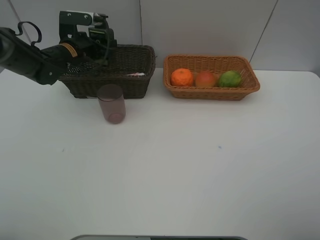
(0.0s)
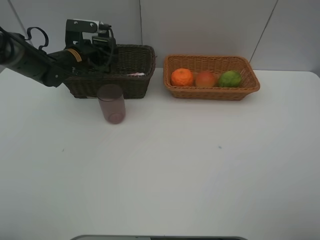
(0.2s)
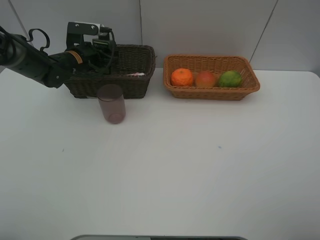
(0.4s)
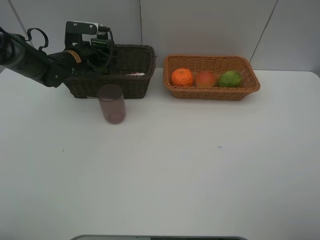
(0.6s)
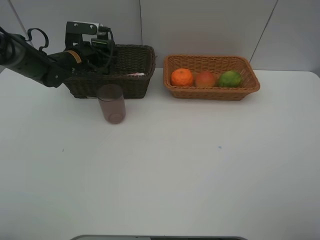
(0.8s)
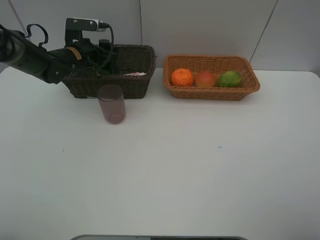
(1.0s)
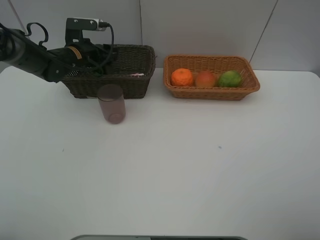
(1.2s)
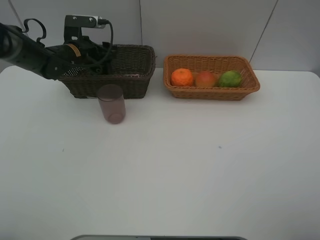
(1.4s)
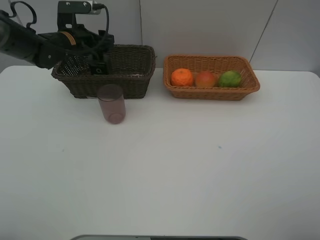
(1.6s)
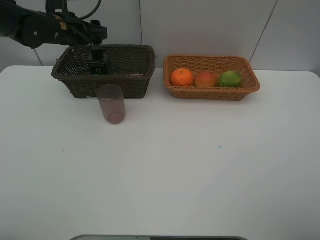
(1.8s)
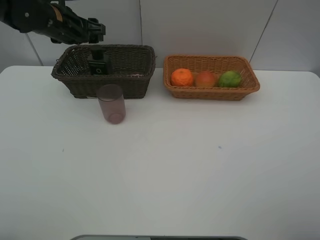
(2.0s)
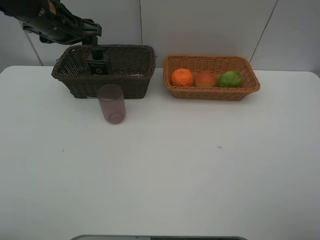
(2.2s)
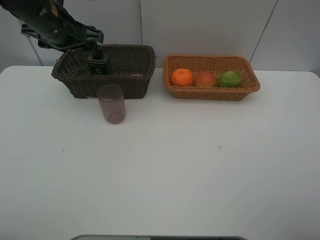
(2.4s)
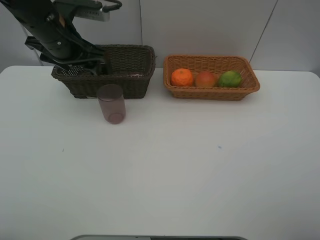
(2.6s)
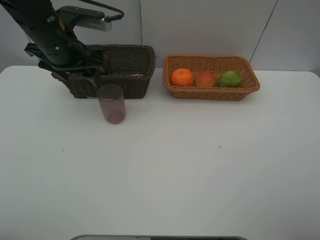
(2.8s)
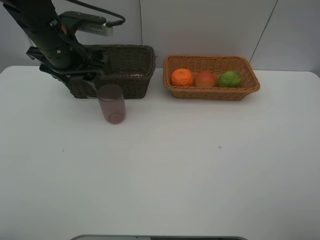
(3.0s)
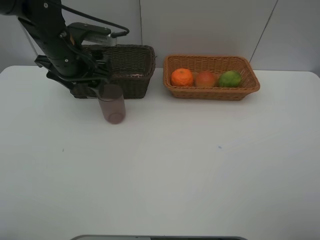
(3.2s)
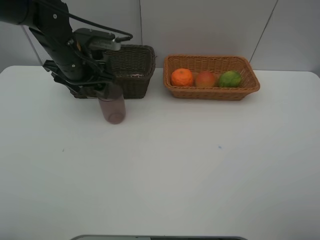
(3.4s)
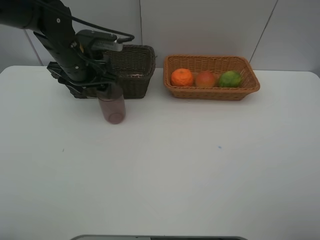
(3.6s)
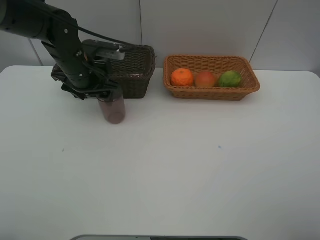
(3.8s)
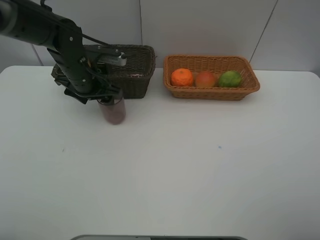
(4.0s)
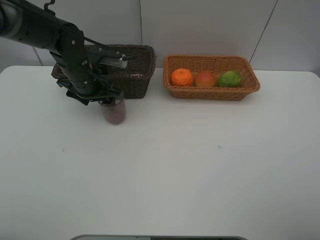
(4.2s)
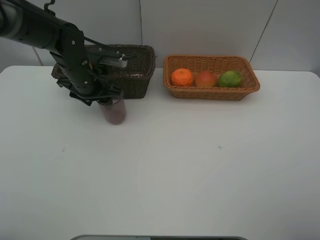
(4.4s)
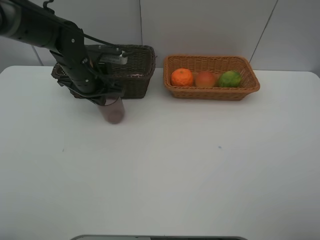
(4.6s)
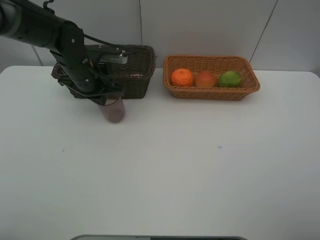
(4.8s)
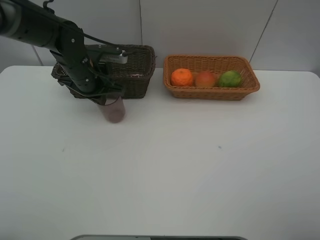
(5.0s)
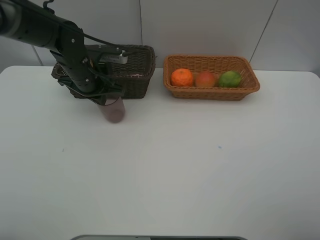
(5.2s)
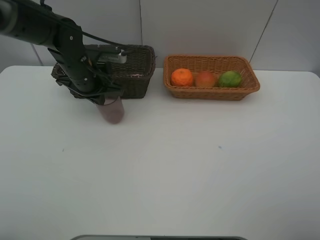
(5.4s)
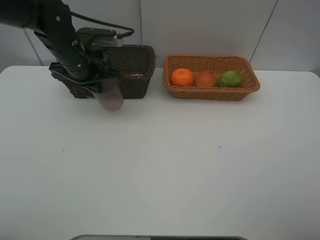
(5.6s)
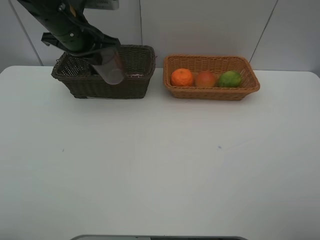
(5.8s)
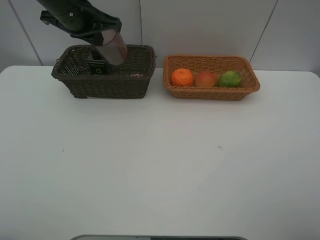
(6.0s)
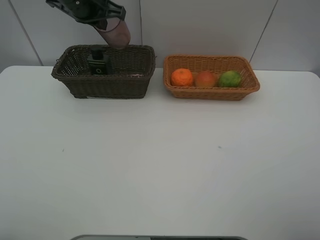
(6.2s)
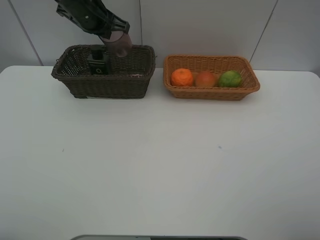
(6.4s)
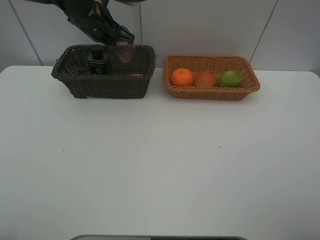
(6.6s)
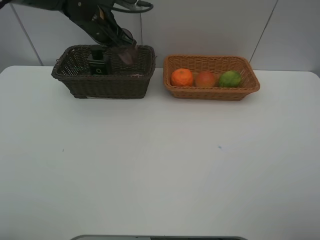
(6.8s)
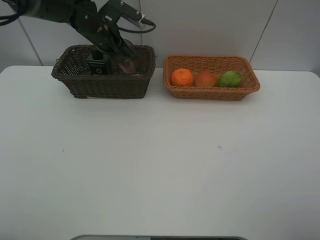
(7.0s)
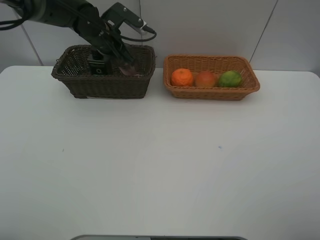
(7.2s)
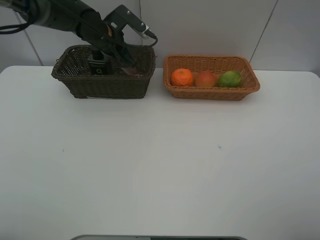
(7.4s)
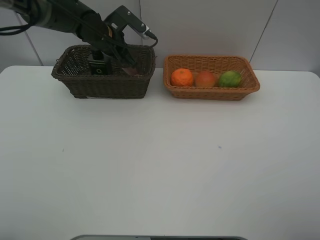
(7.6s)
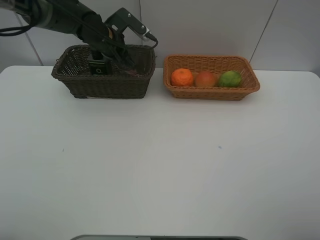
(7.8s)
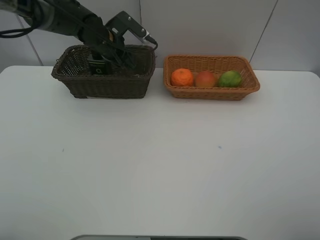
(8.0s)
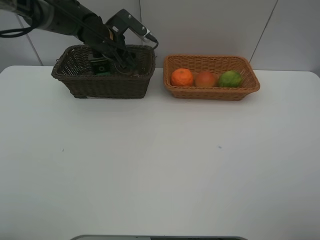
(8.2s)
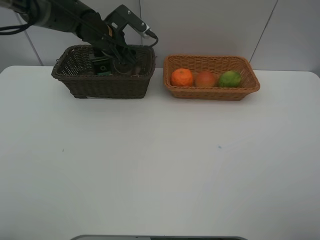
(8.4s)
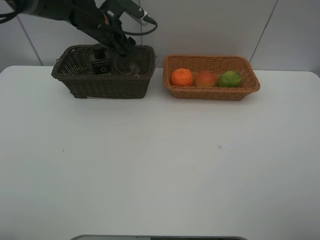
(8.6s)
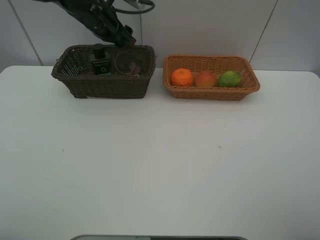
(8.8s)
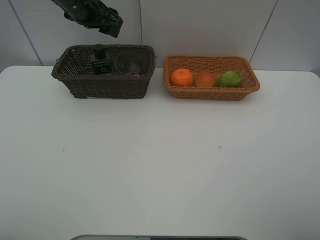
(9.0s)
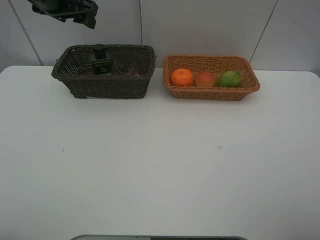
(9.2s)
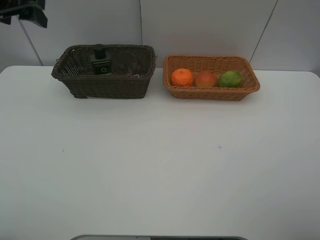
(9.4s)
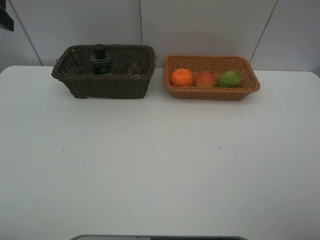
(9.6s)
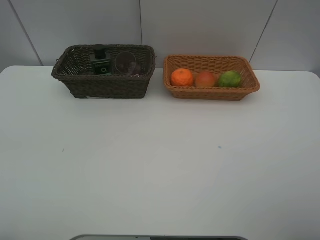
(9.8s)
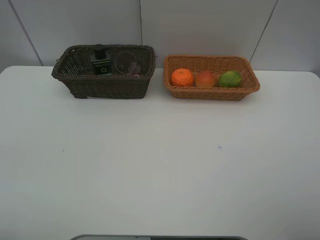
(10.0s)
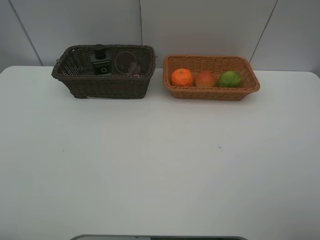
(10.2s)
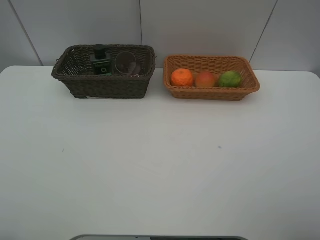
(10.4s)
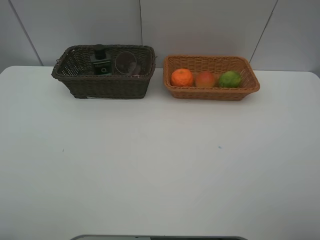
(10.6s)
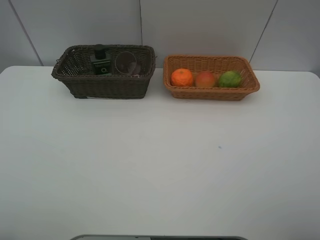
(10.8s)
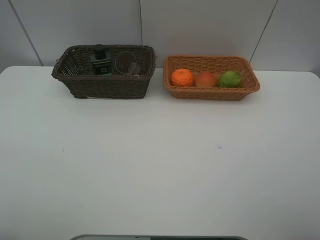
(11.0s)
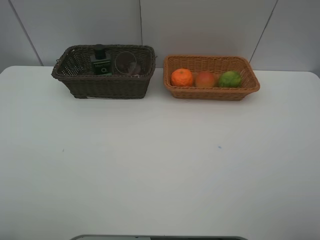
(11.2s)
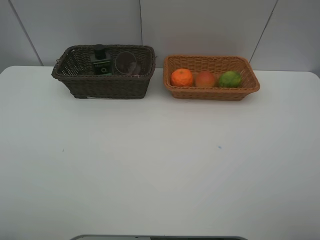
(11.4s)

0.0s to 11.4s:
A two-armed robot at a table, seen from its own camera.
Task of the whole recording: place multiple objects separately in different baskets.
0.0s to 1.4s: The grippers move only a little.
1.4s to 2.8s: The left gripper heads backward and upward, covering approximately 15 cm.
2.8s to 4.2s: The left gripper shifts roughly 10 cm downward.
4.2s to 5.6s: The left gripper is displaced upward by roughly 5 cm, and closes up.
5.6s to 7.2s: The left gripper moves forward, some 10 cm, and reaches about 10 cm upward, then returns.
7.2s to 8.6s: The left gripper opens up.
8.6s to 10.0s: The left gripper is displaced backward, to the left and upward by roughly 40 cm.

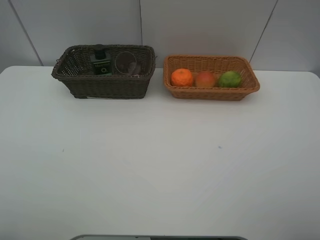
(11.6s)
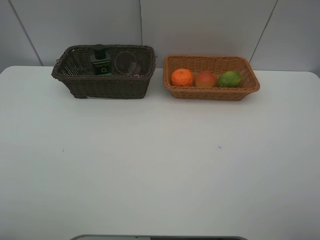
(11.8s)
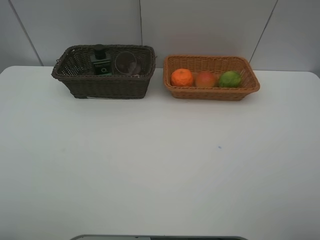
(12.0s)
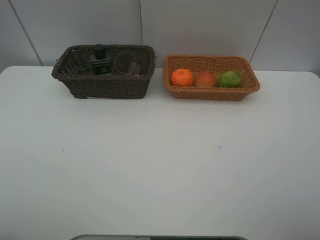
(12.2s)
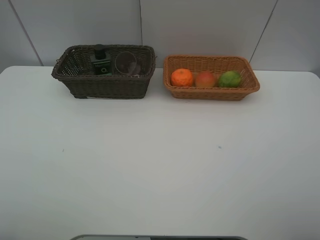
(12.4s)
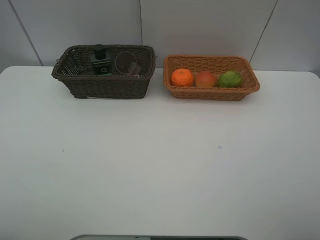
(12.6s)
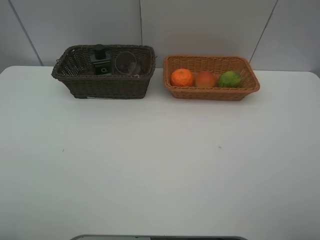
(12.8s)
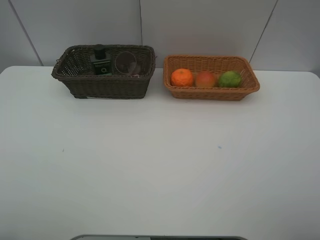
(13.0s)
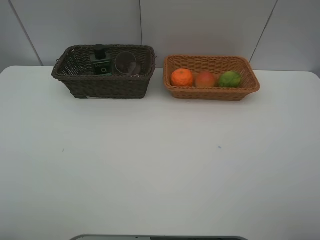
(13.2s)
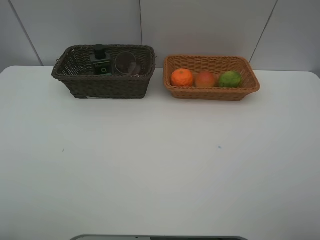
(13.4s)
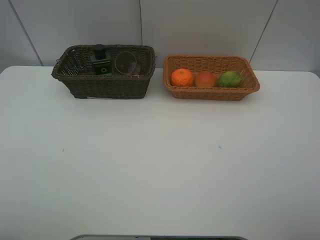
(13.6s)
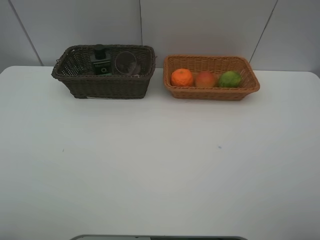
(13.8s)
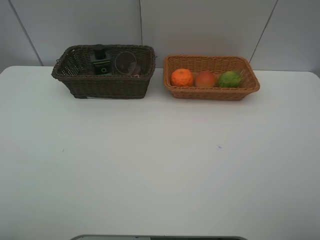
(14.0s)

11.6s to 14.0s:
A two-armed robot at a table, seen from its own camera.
Task of the whole recording: place multiple objects separately in different baskets.
12.8s to 14.0s: Neither gripper changes place.

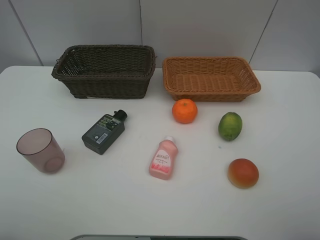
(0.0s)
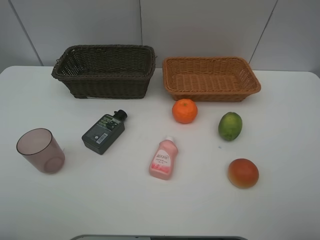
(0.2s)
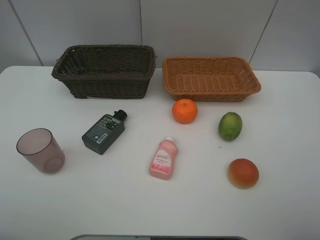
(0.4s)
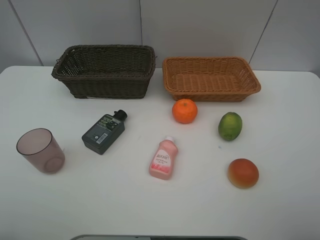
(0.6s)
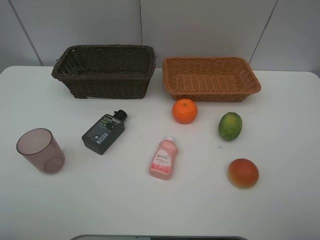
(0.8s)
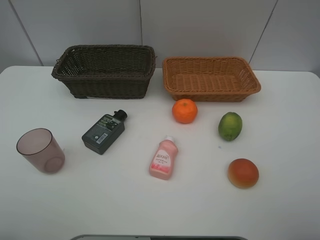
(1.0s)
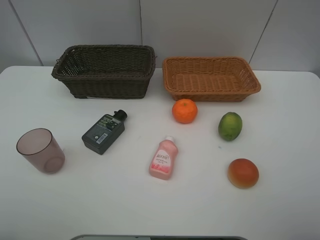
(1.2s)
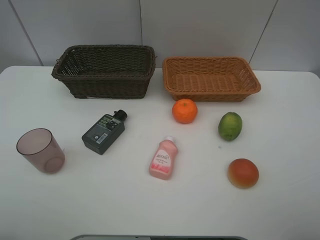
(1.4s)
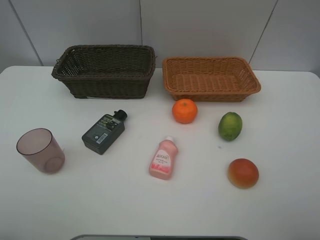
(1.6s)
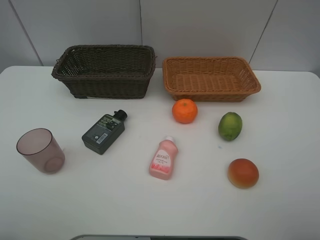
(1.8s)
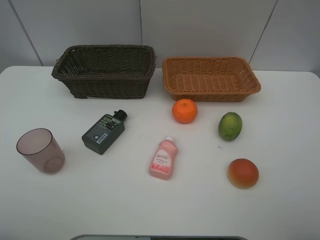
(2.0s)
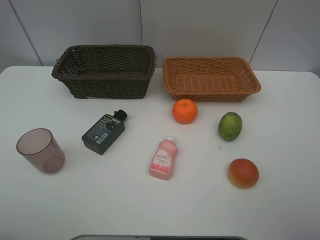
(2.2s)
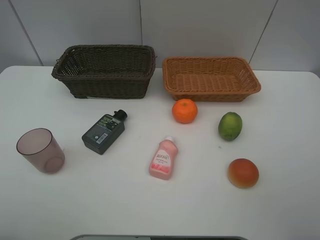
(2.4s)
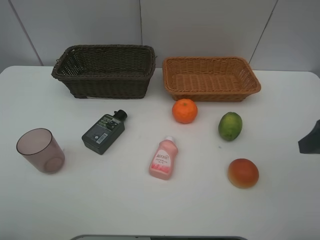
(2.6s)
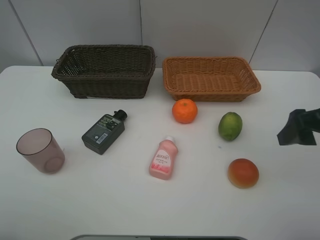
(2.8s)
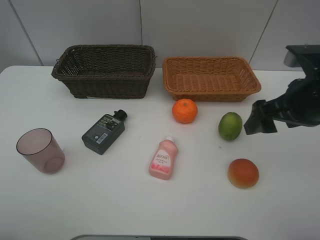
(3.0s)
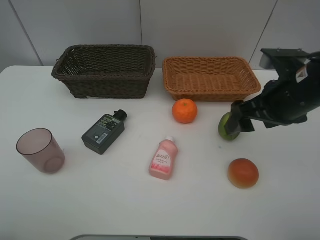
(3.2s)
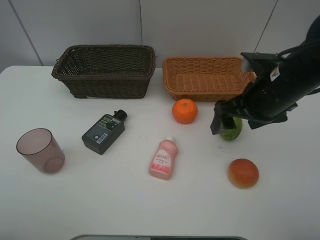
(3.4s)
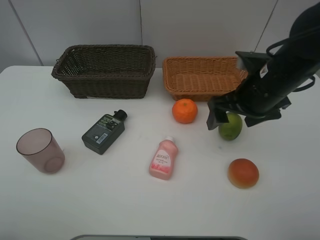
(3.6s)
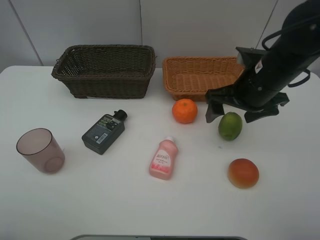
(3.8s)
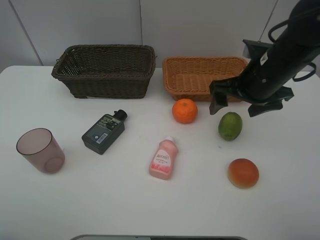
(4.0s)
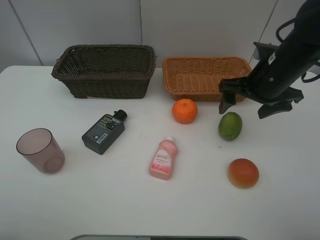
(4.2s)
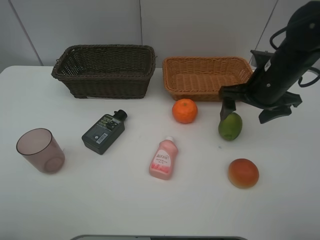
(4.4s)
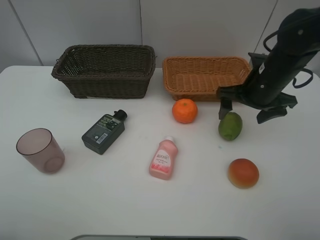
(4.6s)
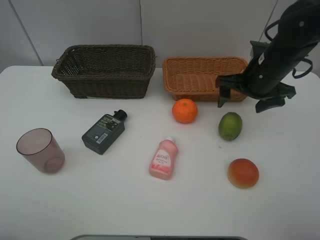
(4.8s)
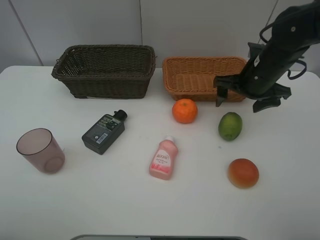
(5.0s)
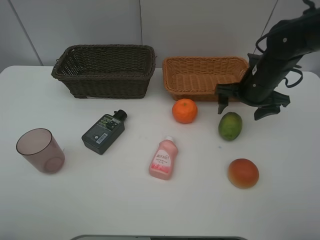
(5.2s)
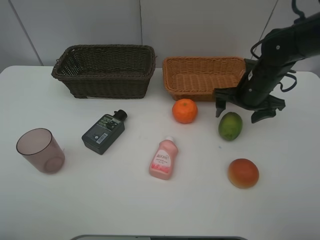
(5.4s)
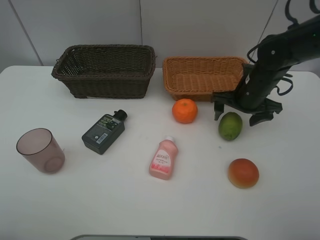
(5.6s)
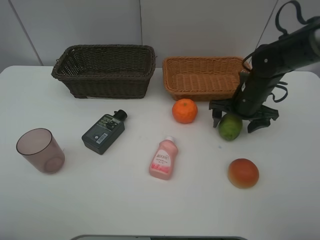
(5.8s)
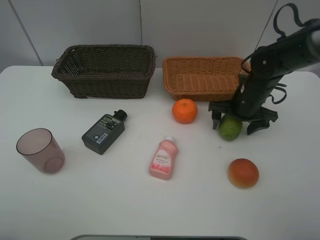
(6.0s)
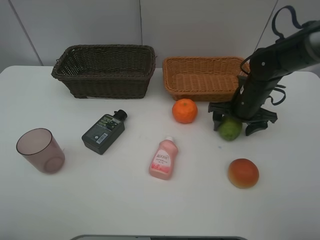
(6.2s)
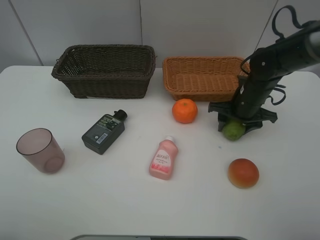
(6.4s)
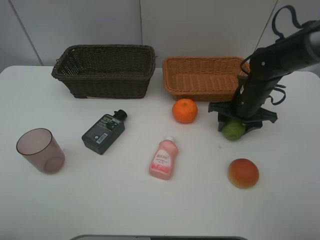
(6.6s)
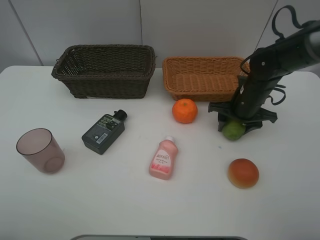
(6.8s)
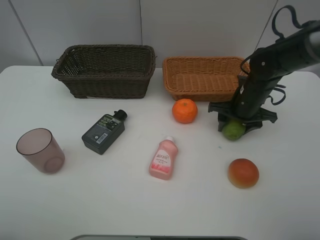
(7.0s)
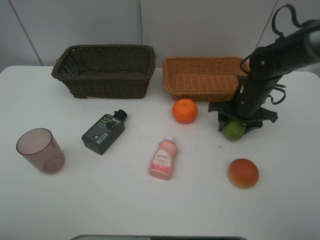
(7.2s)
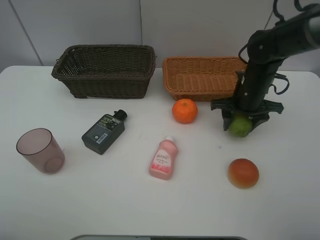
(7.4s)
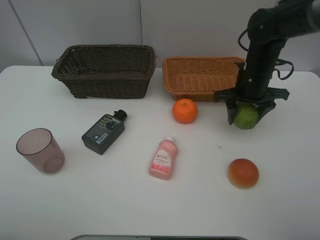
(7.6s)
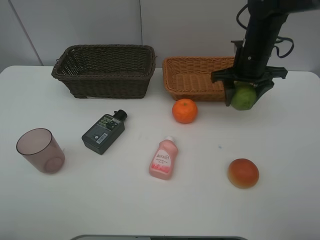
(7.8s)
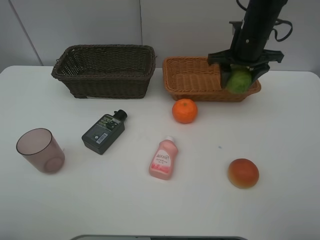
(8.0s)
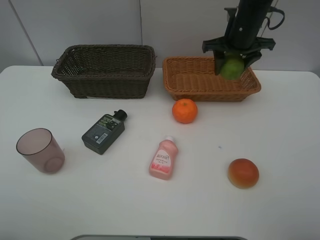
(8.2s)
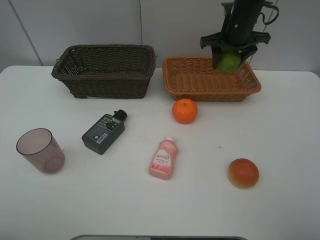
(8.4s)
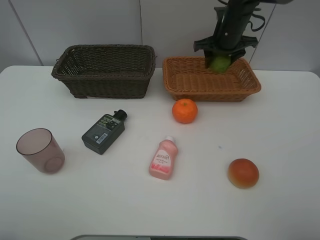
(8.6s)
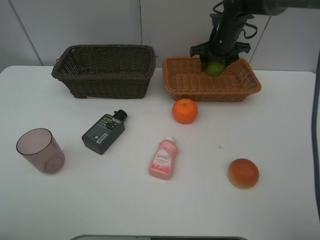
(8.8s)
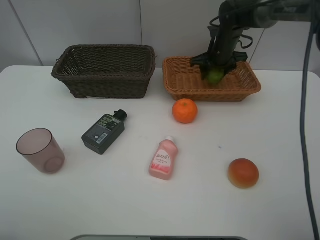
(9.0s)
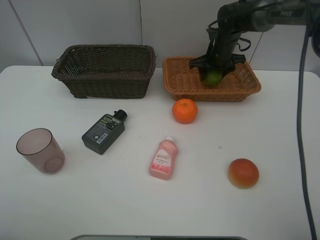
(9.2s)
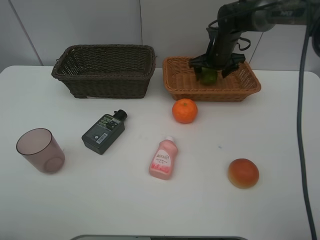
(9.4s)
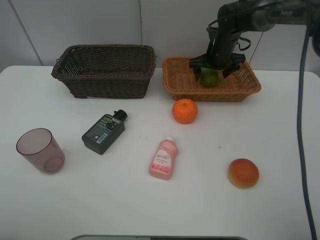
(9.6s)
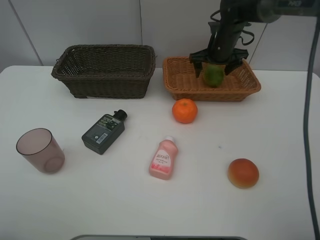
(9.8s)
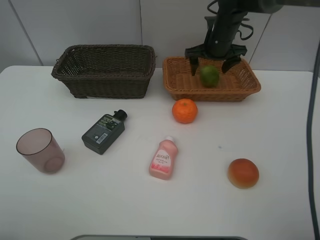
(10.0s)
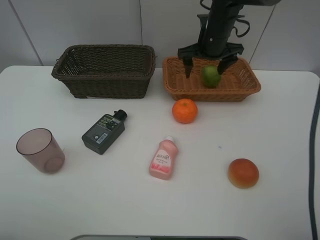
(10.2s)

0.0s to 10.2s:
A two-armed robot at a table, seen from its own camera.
Task of the whole recording: place multiple objects separately in different baskets.
0.0s to 1.4s: Both grippers stay put.
1.4s to 3.0s: The right gripper is displaced forward by approximately 20 cm.
3.0s to 4.4s: The right gripper goes some 10 cm forward.
4.4s to 5.8s: The right gripper goes roughly 10 cm downward.
5.8s to 7.2s: The right gripper closes its fingers.
7.2s to 8.8s: The right gripper goes about 15 cm forward and upward.
8.8s to 10.2s: The right gripper shifts by some 5 cm, and opens.
